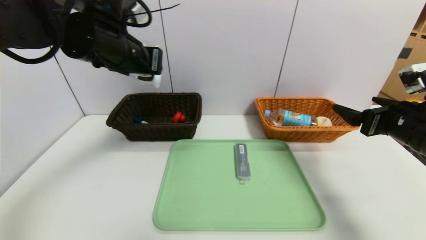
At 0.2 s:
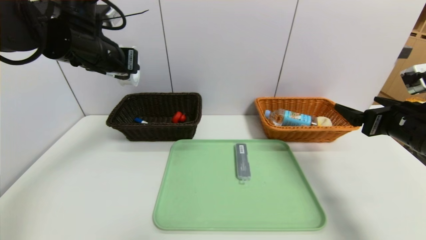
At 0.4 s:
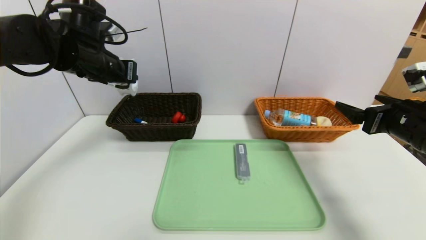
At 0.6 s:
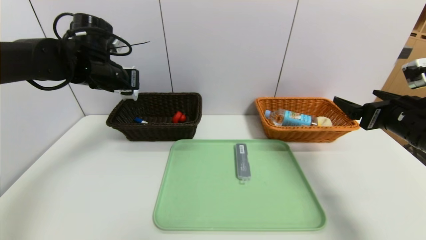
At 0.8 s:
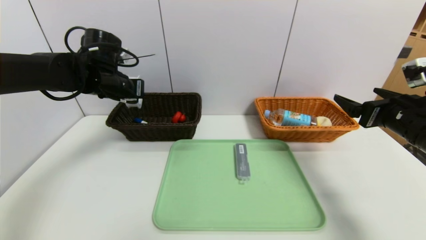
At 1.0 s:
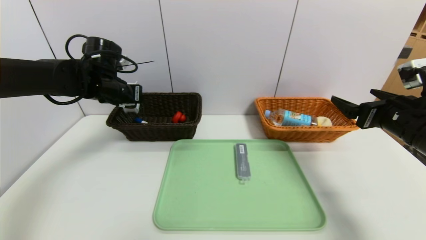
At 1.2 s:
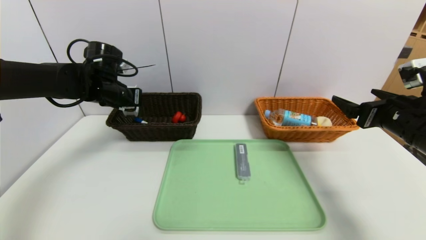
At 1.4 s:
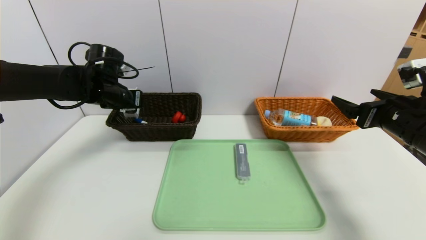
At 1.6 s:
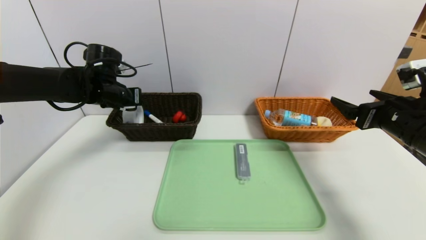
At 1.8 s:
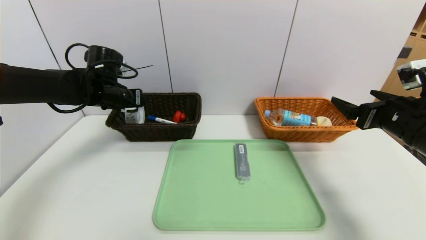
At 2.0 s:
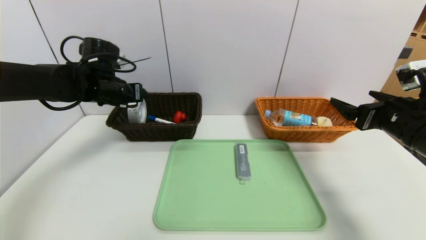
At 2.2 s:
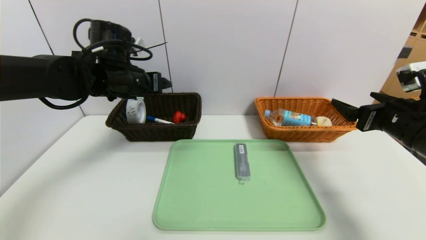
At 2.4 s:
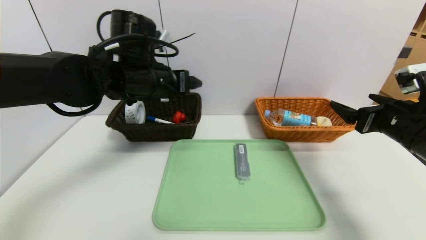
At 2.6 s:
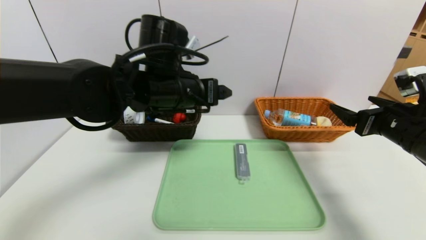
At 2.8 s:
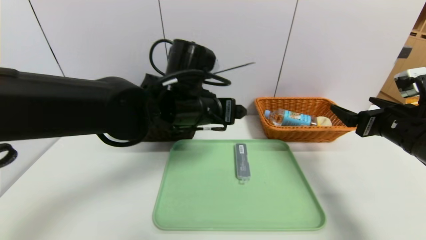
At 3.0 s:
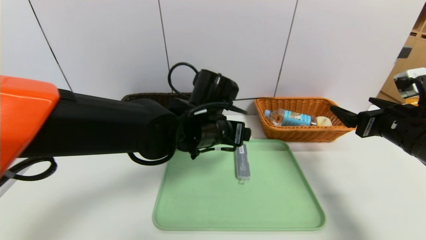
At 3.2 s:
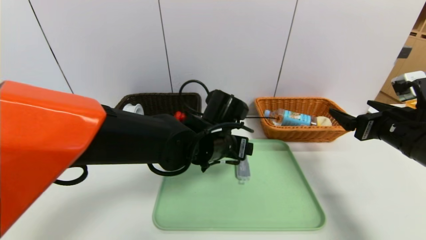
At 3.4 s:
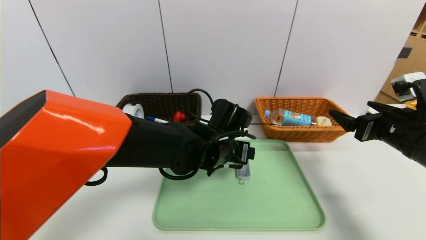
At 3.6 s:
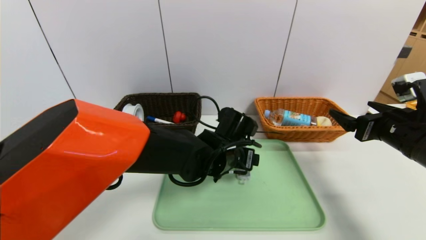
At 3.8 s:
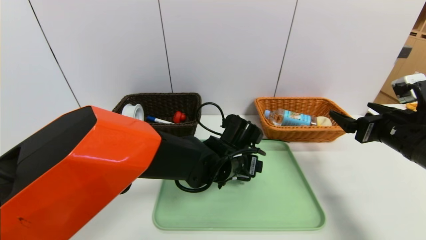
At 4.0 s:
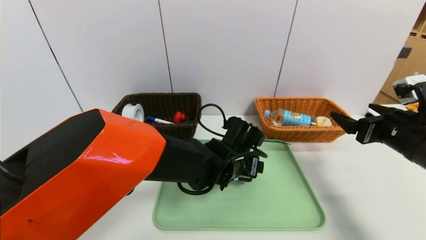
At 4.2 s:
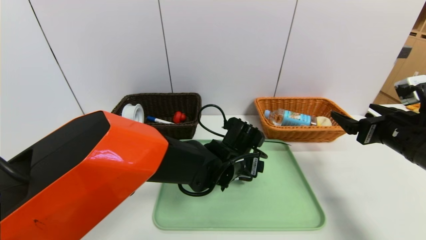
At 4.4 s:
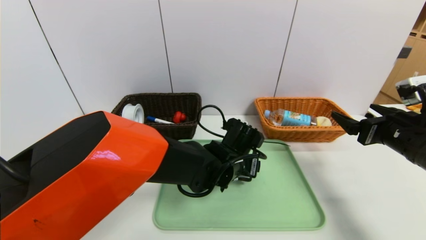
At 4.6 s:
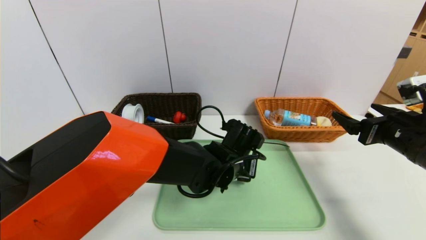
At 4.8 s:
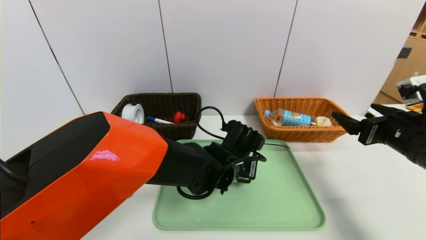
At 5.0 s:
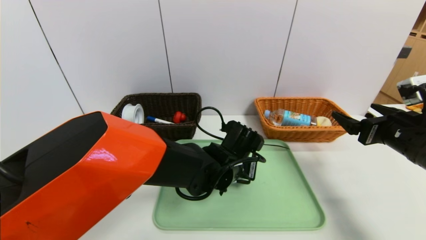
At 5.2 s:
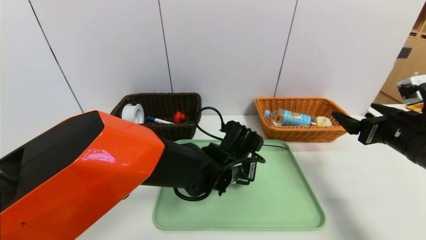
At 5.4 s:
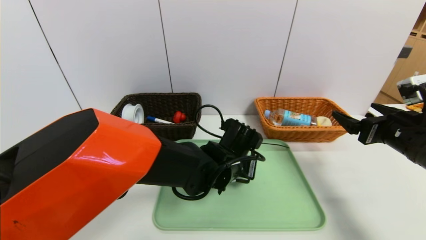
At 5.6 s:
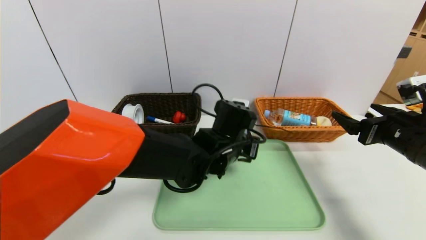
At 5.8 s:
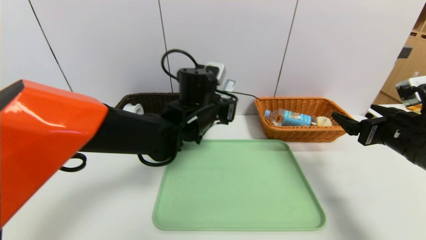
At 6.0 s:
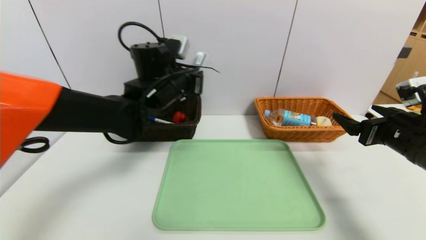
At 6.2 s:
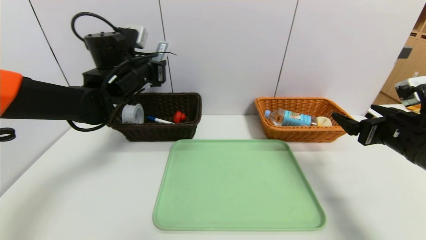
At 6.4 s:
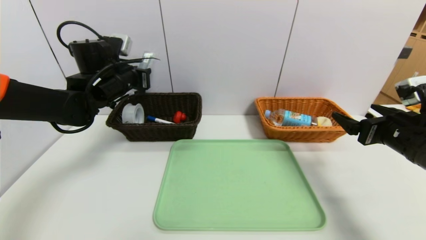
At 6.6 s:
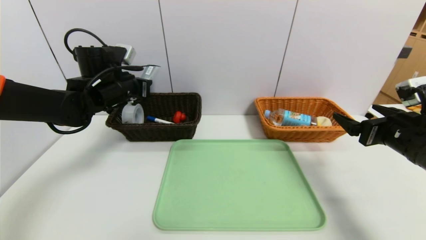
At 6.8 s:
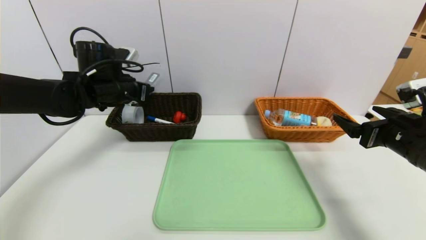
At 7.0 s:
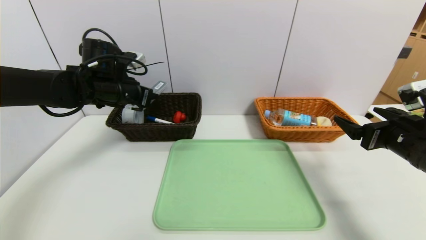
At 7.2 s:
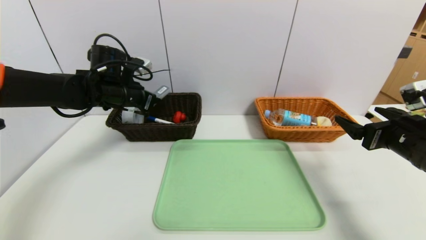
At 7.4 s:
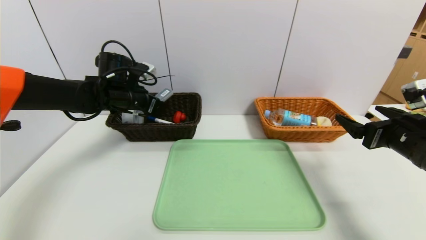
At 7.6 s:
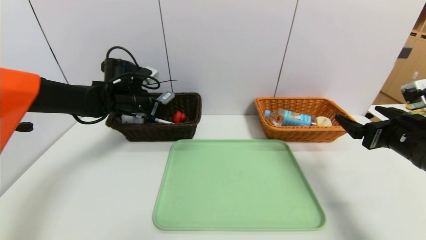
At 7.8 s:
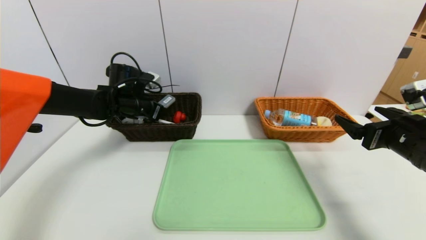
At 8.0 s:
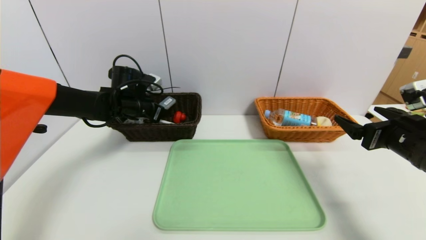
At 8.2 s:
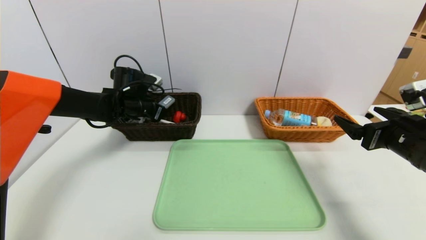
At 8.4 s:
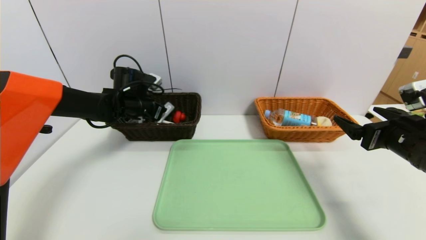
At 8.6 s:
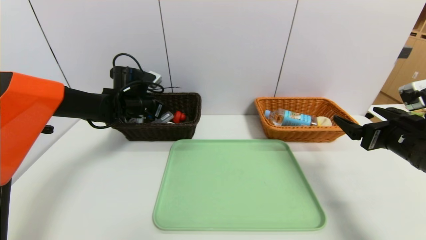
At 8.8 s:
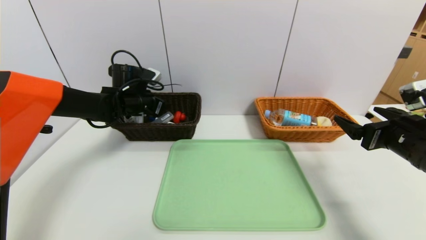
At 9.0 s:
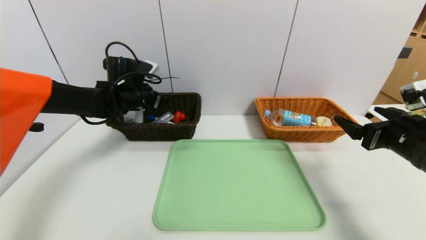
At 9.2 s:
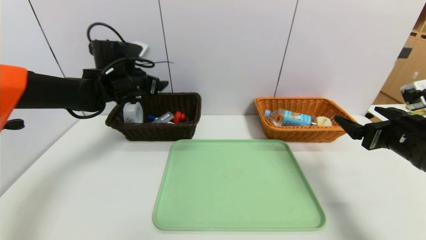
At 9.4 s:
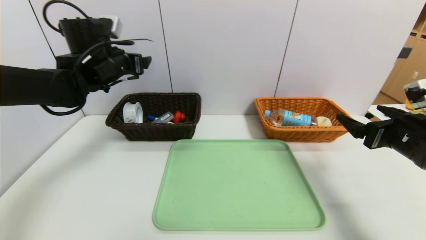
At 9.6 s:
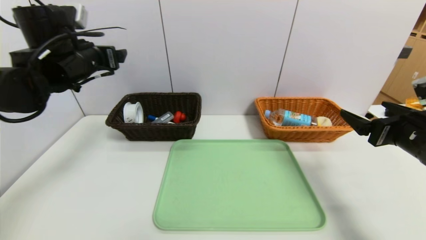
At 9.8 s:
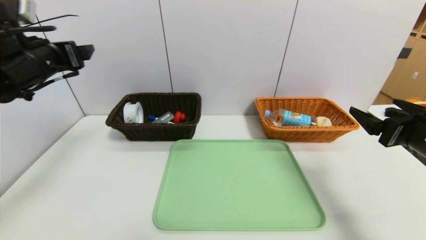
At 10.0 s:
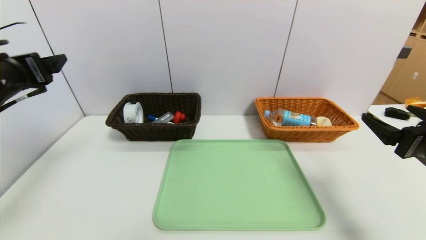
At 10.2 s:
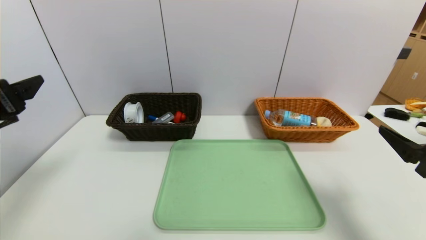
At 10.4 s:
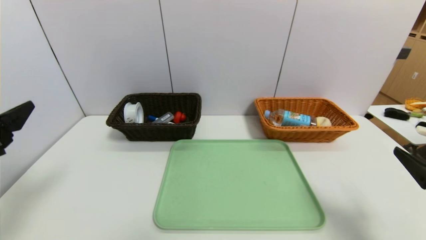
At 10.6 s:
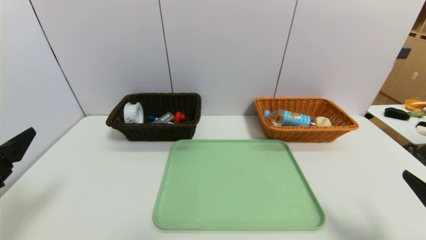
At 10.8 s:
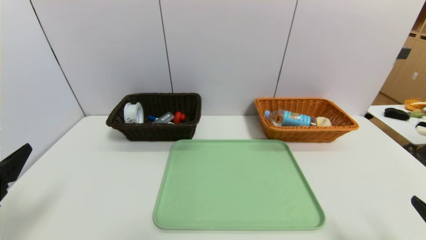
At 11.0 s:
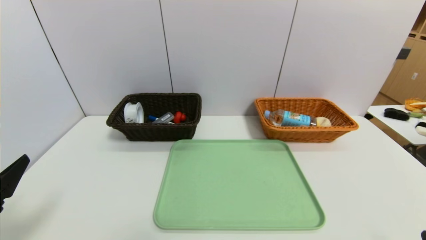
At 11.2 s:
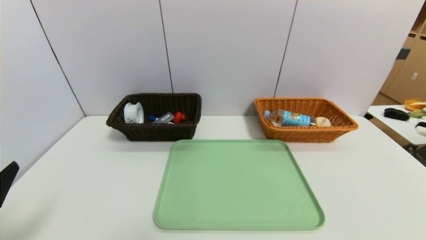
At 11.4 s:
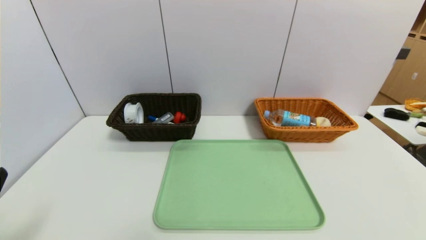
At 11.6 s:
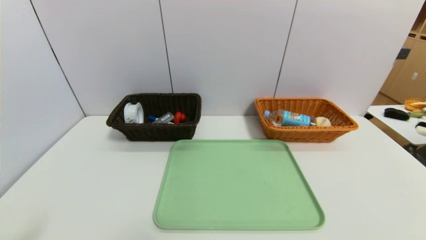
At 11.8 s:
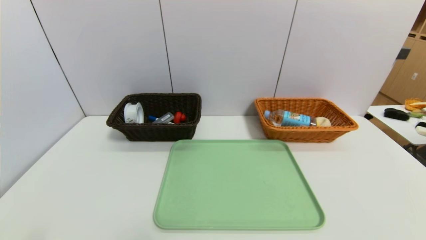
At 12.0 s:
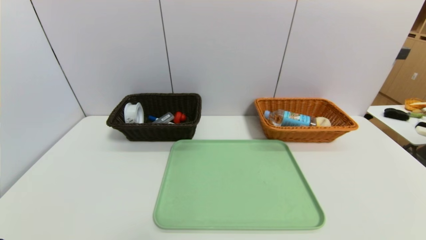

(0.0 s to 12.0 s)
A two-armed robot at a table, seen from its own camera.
Task of the whole recording: place the food in the right basket with the right gripper, and place the non food items in the left basket with the left gripper.
Step, 0.0 s - 2.0 s: Grasp the tape and put it in the left basket.
Step, 2.2 s - 8.8 s: Grasp the compass and put it in the left basket.
0.0 s - 1.6 s: The left gripper shifts some 15 cm downward, forward and to the left.
1.6 s - 3.0 s: The left gripper moves to the right and backward, some 25 cm, and opens up.
3.0 s - 4.4 s: The left gripper moves downward, roughly 10 cm.
4.4 s - 6.0 s: The left gripper travels to the left, upward and forward by roughly 20 cm, and closes its fingers.
6.0 s - 7.6 s: The left gripper is displaced to the left, downward and forward by roughly 15 cm.
7.6 s - 9.0 s: The left gripper opens its fingers.
9.0 s - 10.4 s: The right gripper is displaced backward by roughly 10 cm, while the left gripper moves backward, roughly 30 cm.
10.4 s - 12.0 s: The grippers both shift backward and downward by some 20 cm.

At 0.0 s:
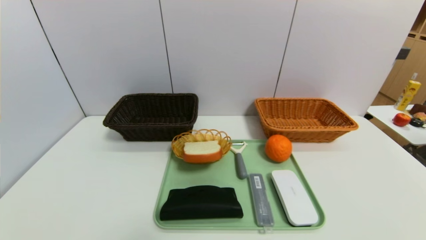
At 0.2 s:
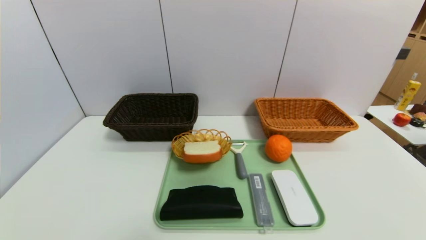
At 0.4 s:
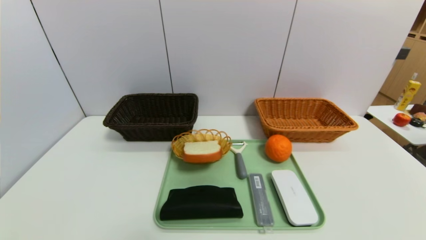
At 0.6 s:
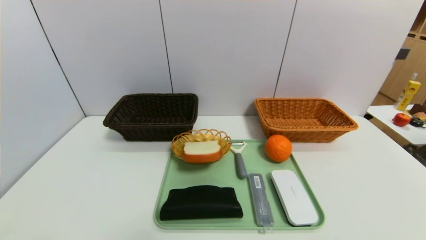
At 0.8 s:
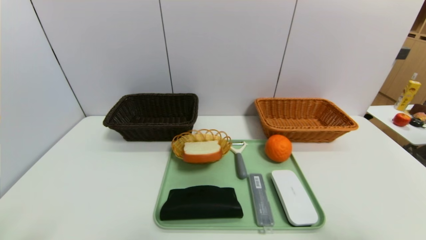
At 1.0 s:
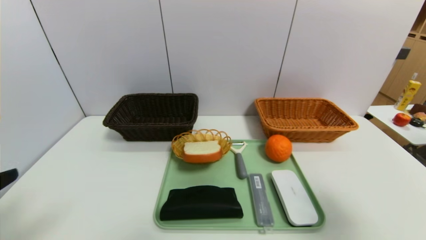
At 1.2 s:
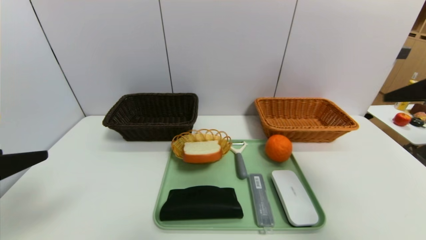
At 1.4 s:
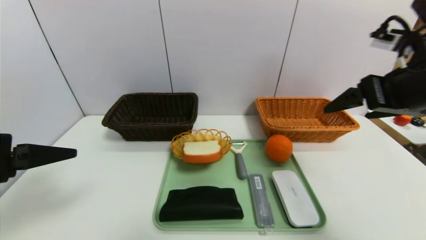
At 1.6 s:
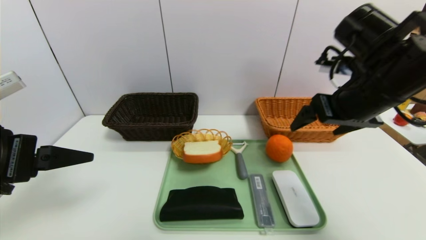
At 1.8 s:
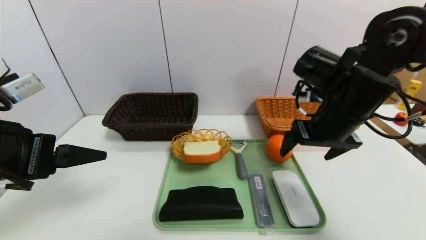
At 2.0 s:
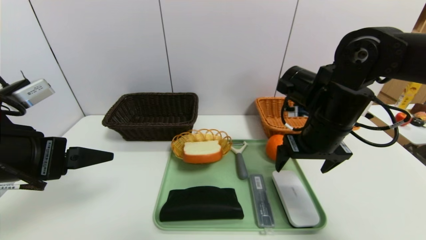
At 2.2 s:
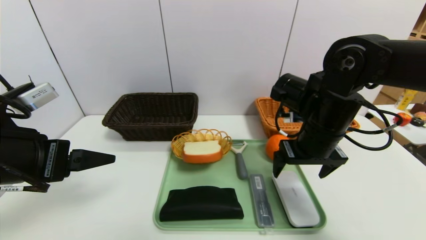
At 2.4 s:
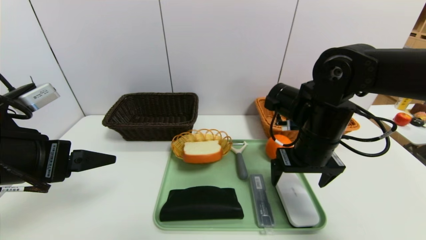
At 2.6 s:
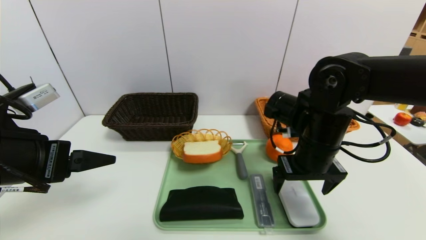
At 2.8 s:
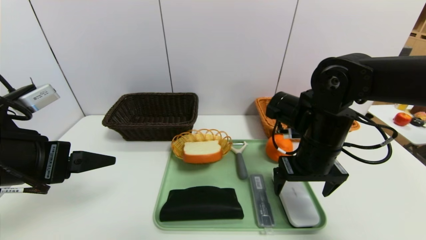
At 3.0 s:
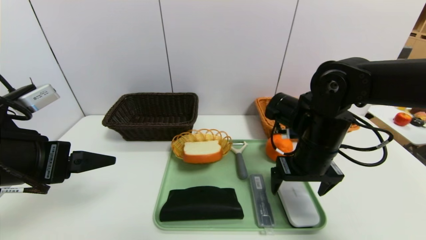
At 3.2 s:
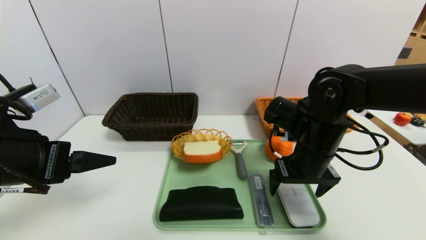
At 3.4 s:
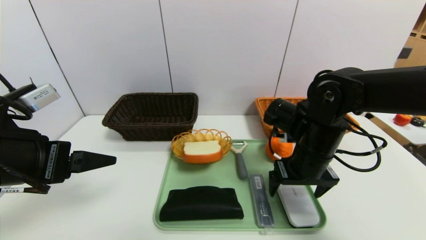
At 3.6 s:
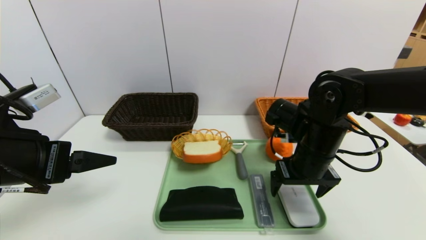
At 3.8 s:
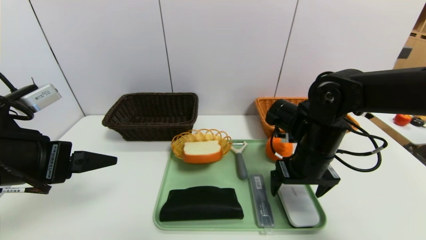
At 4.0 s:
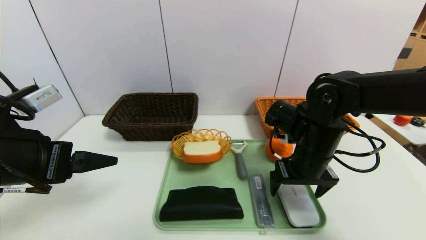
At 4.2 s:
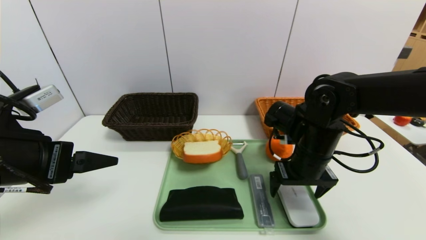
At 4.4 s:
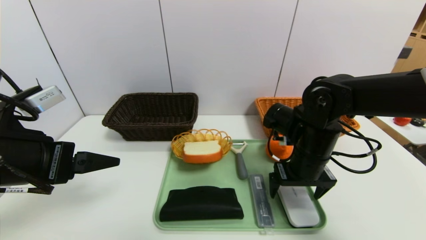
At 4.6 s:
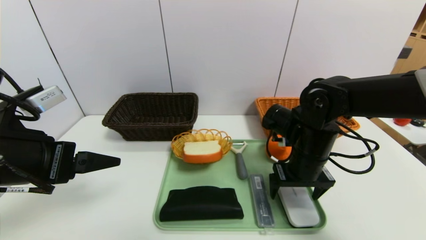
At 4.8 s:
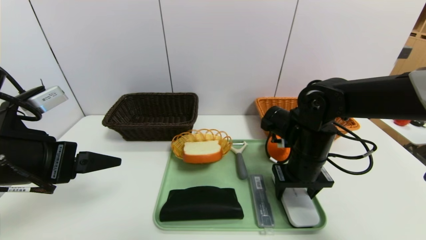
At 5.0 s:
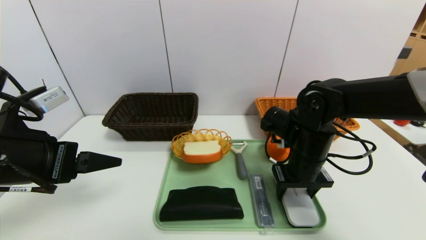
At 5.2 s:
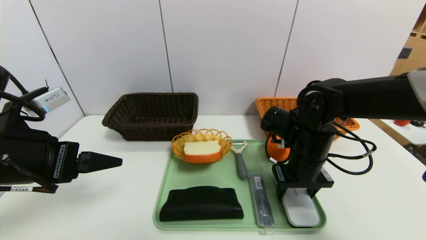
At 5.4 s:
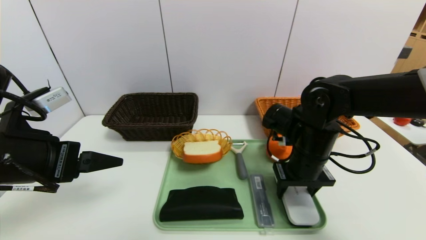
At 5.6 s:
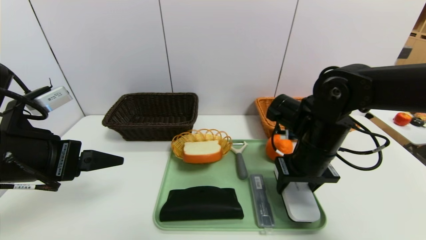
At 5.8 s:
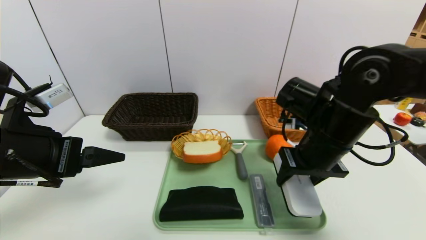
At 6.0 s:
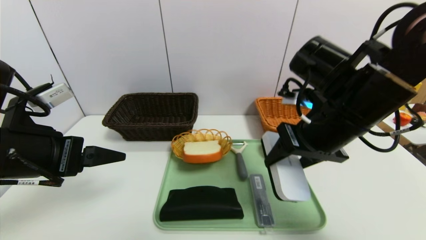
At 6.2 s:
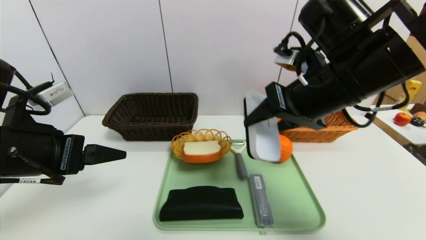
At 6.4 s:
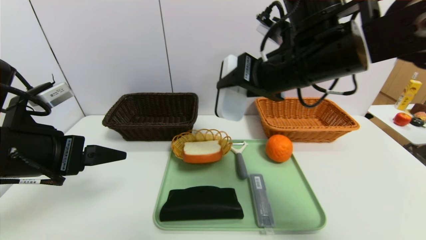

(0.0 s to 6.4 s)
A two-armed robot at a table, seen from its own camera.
Task of the whole recording: place the food in the right basket with the right gripper, and place the non food items in the left basket with the left gripper.
0.0 s - 1.6 s: The right gripper goes some 40 cm forward, upward and to the left, while the left gripper shifts approximately 25 cm upward and forward.
1.6 s - 3.2 s: The right gripper is displaced downward and to the left by about 10 cm.
3.2 s - 4.8 s: The right gripper closes its fingers.
4.8 s - 6.4 s: The right gripper travels upward by roughly 15 cm.
